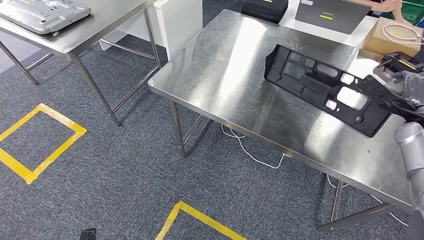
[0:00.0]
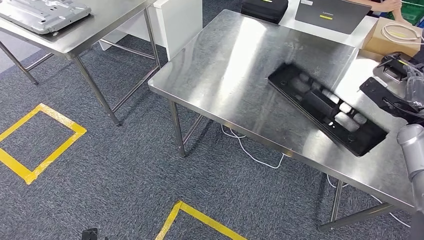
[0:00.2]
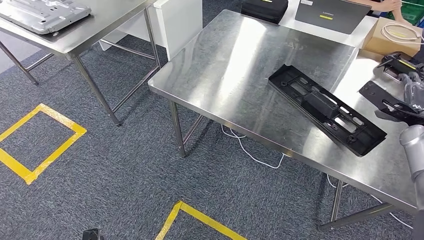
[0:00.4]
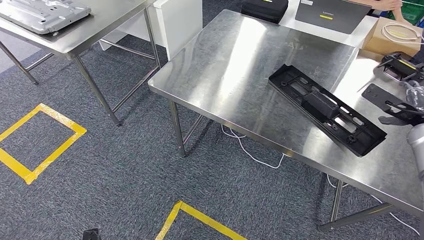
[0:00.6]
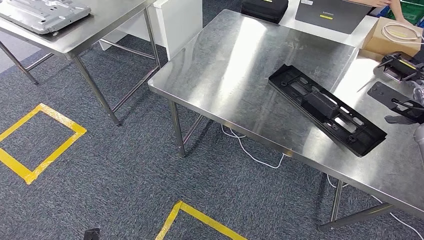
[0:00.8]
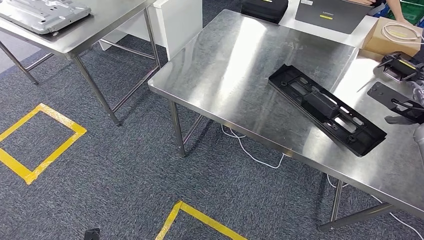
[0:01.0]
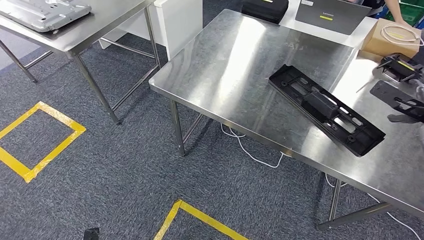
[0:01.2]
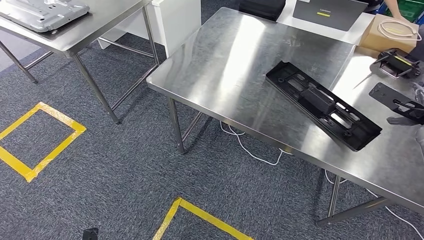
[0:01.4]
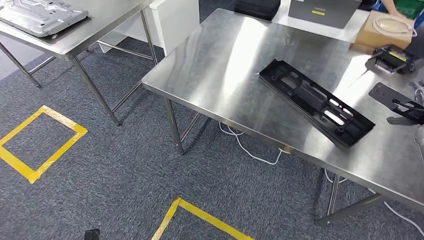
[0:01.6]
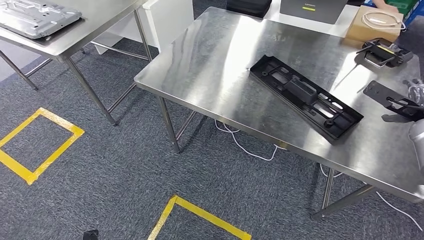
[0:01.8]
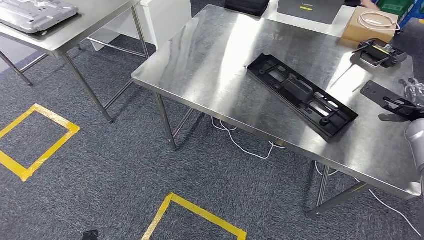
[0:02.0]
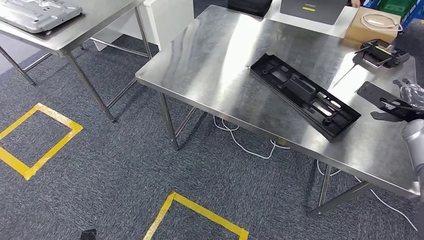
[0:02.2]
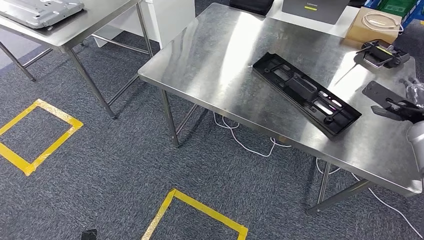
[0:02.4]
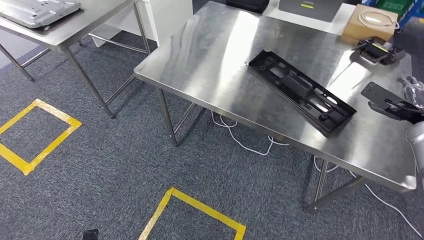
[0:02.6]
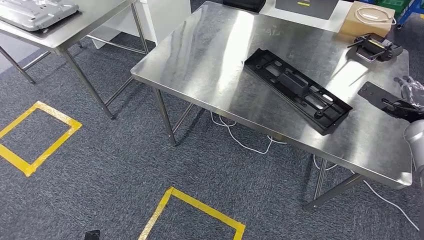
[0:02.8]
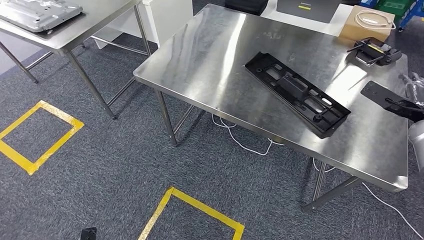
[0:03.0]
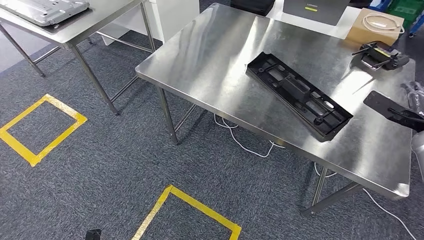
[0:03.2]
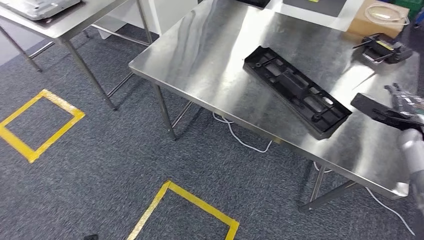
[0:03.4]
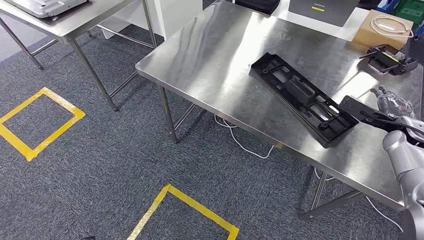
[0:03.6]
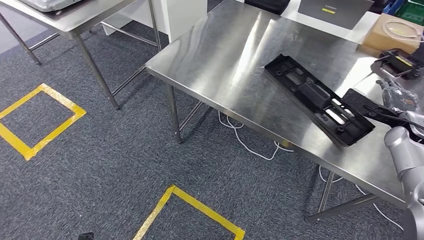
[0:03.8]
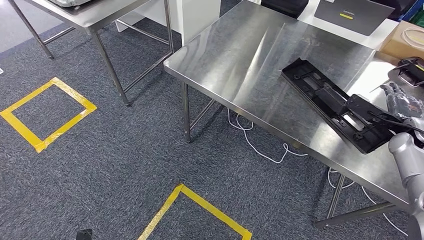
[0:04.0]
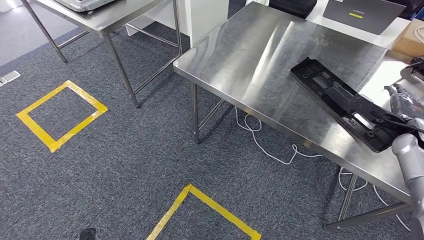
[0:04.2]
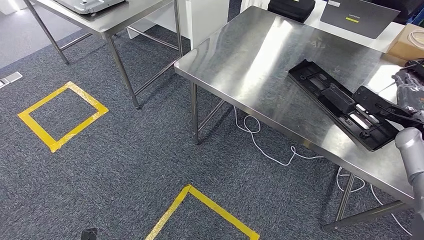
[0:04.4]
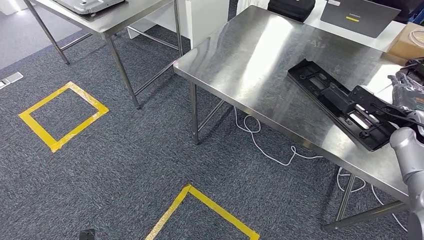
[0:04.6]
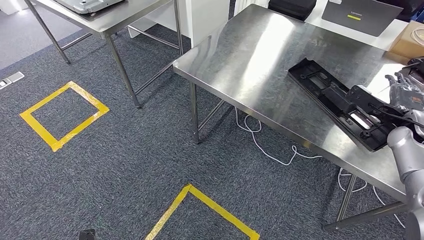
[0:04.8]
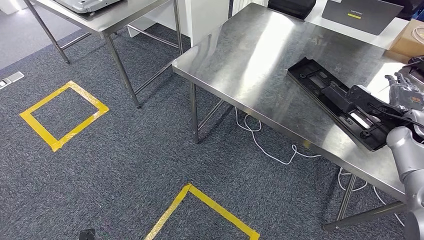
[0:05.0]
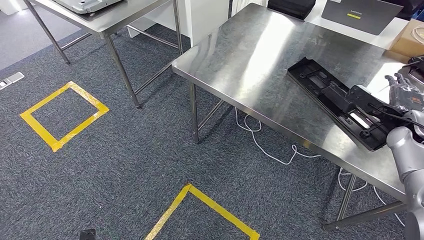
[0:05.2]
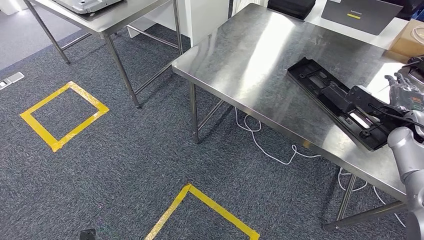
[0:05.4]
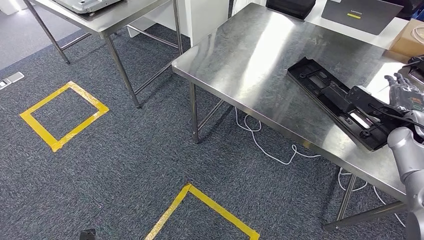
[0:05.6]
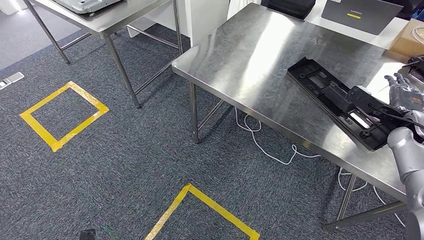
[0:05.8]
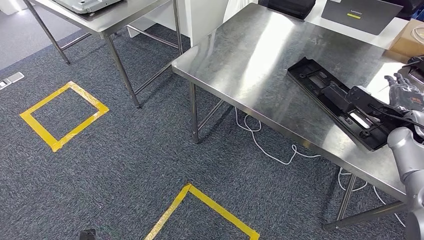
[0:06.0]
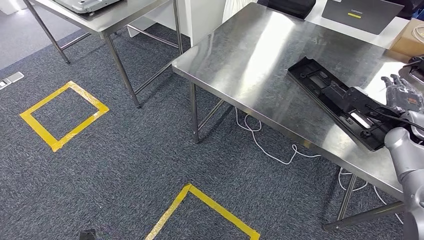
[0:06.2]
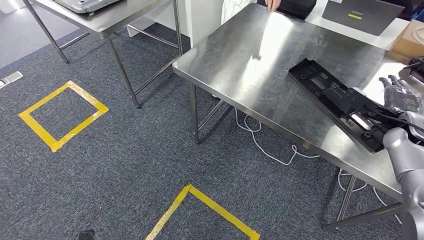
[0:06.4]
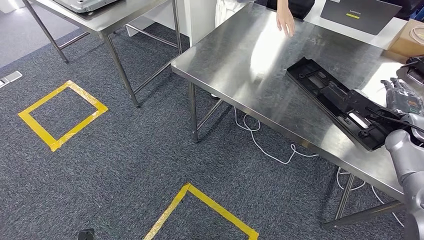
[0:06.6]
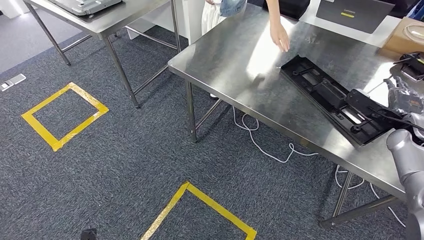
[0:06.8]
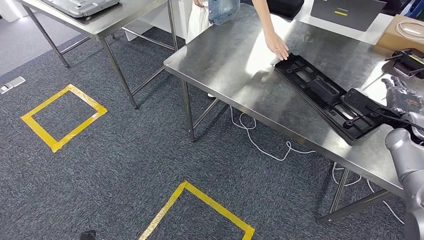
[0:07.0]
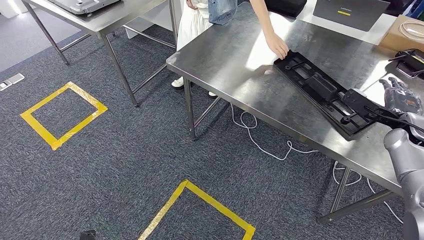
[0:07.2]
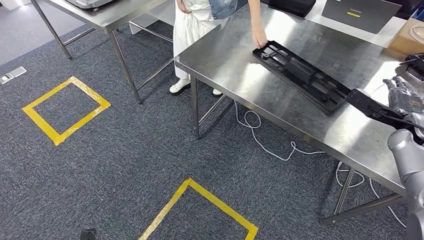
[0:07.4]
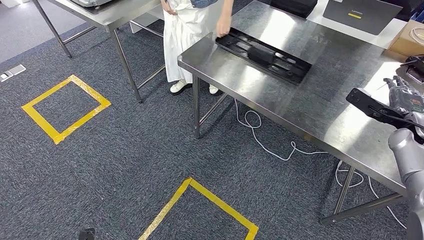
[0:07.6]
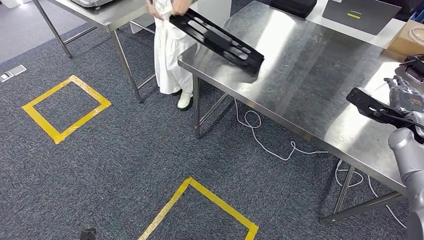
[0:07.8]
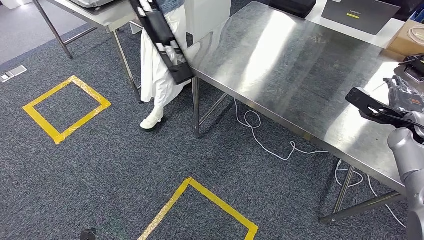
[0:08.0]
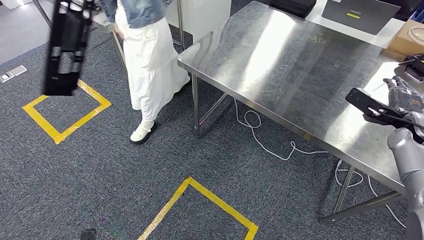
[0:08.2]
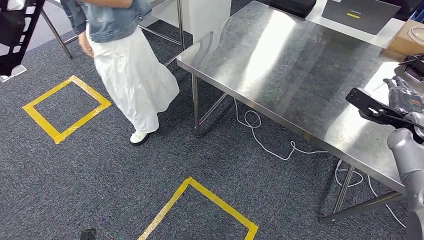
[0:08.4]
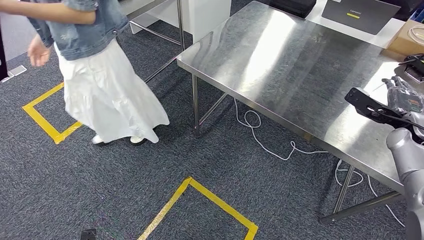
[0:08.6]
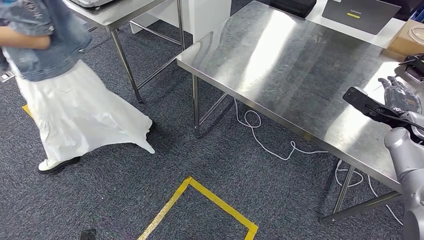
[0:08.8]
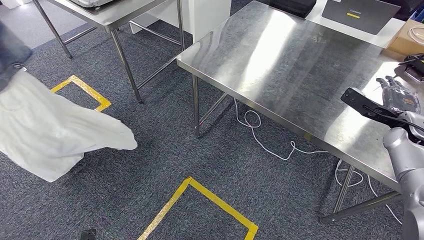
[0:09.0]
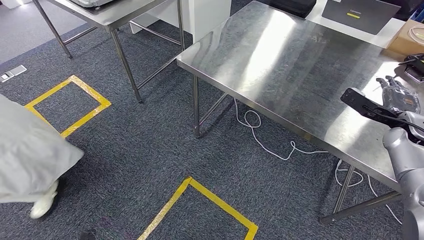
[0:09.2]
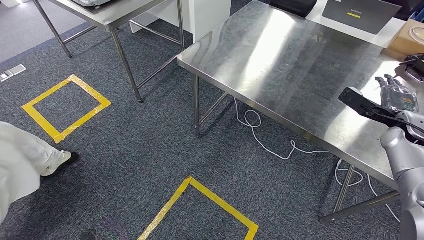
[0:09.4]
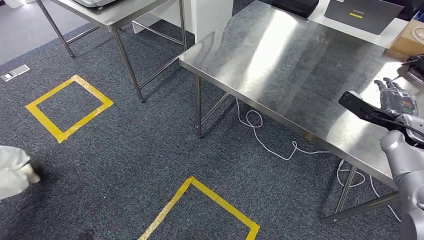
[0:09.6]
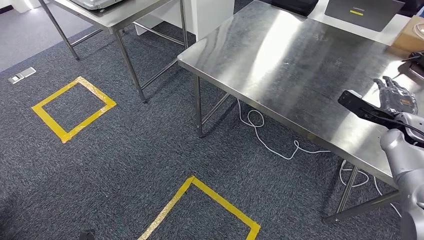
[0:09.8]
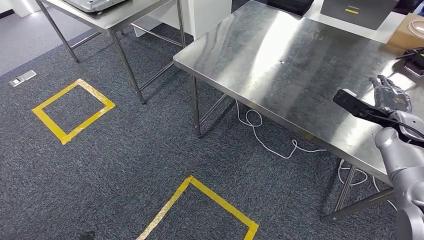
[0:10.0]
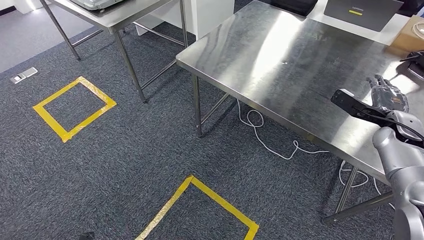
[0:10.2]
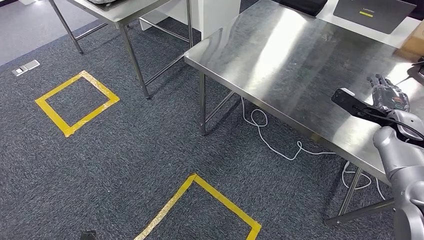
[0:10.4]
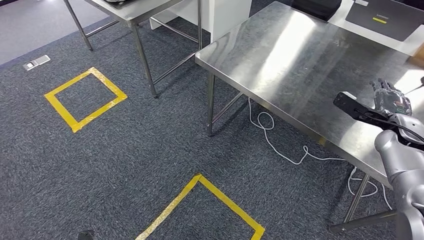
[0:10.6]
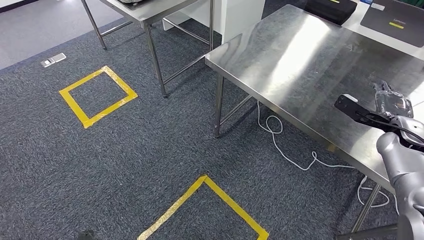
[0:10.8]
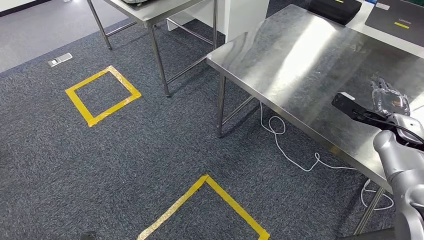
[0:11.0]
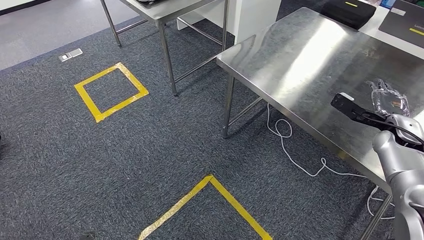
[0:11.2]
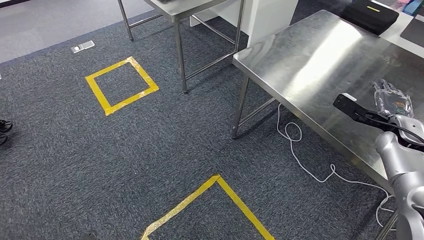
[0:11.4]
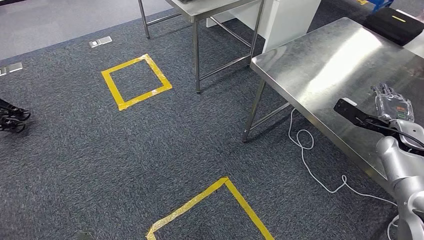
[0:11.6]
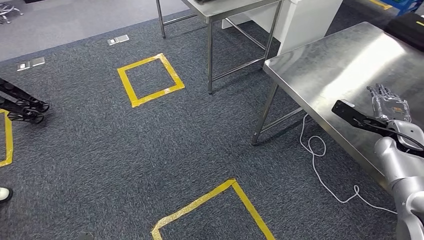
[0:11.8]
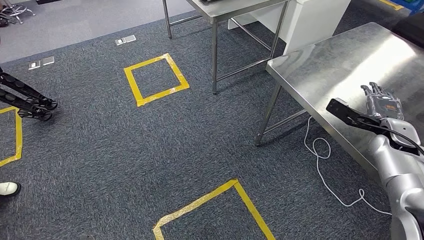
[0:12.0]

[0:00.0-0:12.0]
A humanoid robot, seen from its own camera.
Step, 0:00.0 to 0:03.4: Insert the large material into the corresponding slot on the workbench.
0:04.4 to 0:06.0: The hands move only a little.

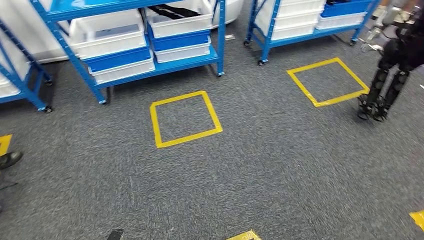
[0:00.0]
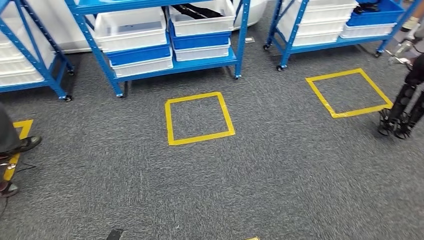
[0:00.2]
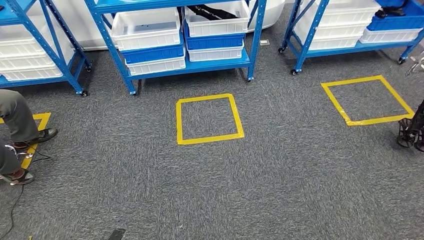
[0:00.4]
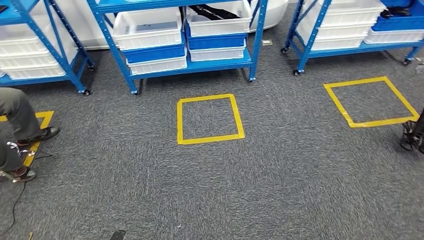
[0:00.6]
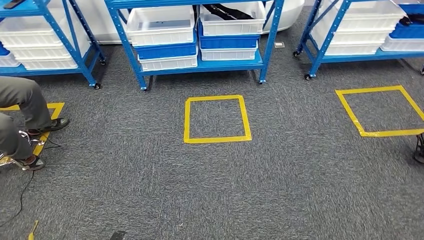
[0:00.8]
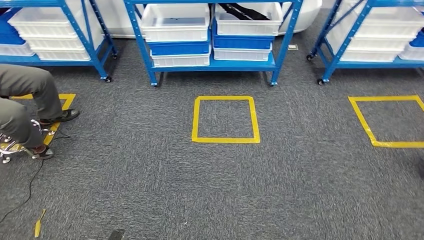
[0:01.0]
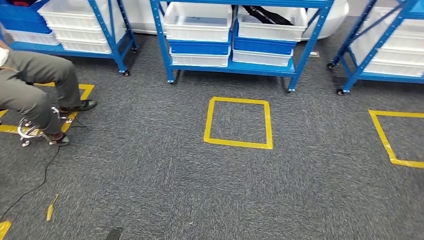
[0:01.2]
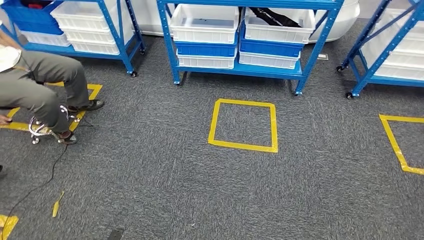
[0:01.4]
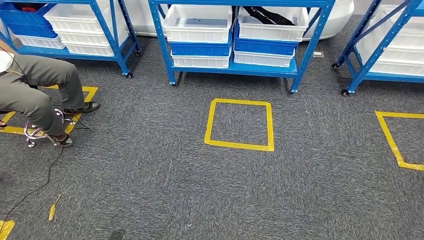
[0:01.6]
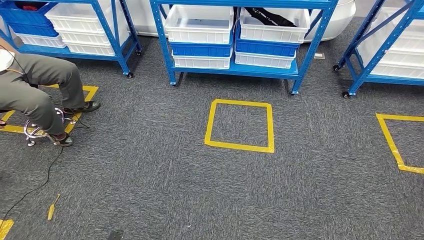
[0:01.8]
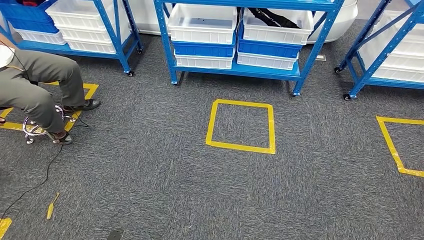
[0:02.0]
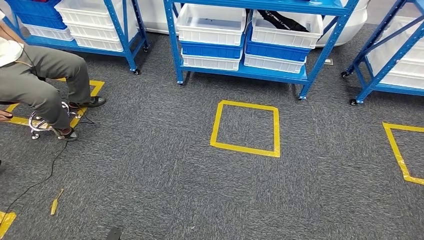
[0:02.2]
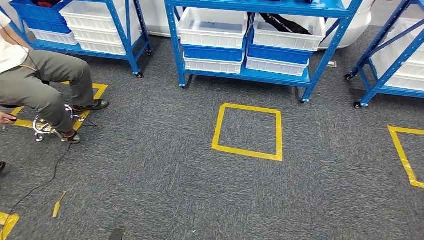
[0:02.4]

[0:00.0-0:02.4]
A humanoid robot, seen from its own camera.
Step, 0:00.0 to 0:02.2: Move to the initial position of the shelf.
